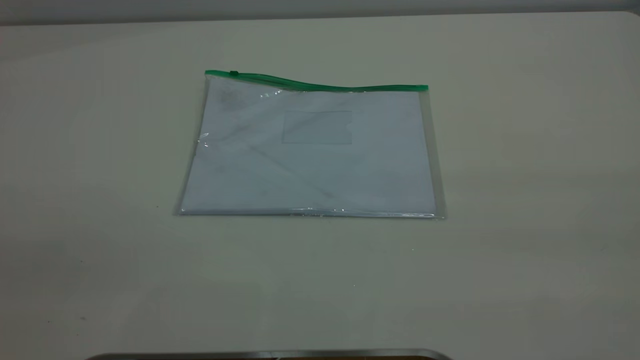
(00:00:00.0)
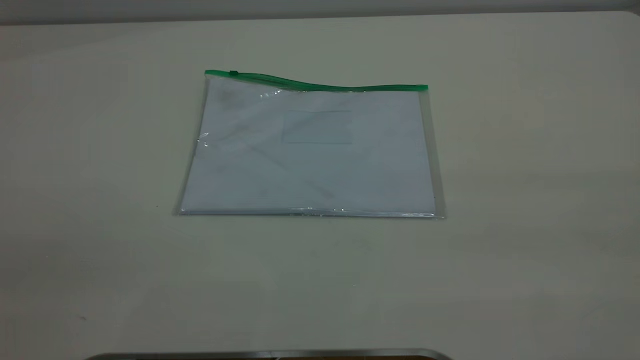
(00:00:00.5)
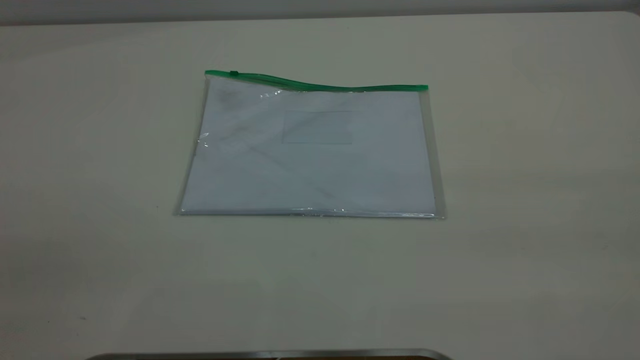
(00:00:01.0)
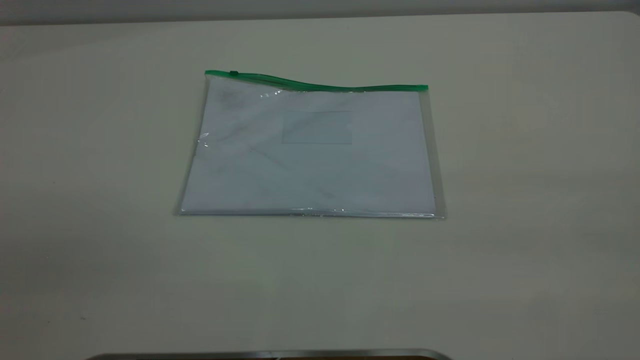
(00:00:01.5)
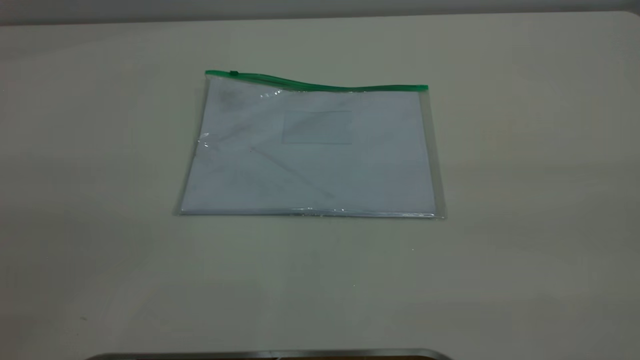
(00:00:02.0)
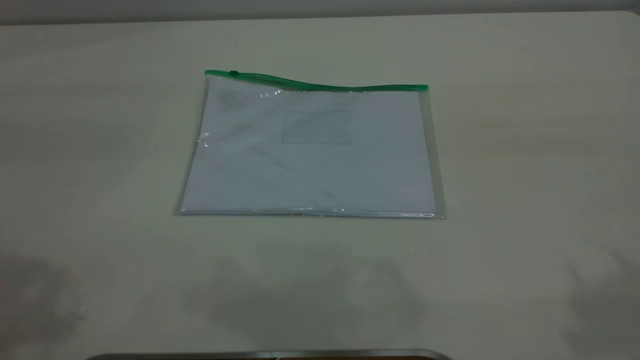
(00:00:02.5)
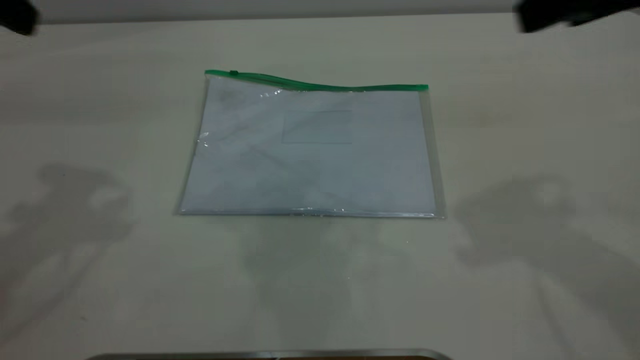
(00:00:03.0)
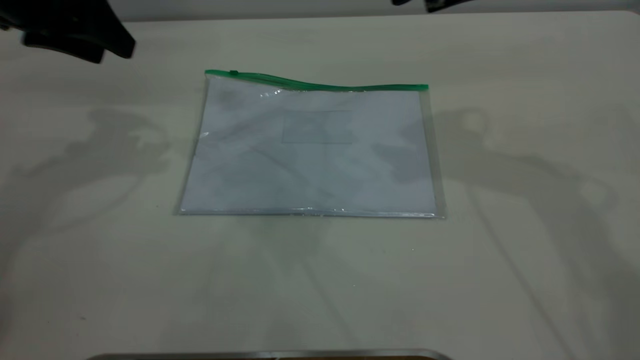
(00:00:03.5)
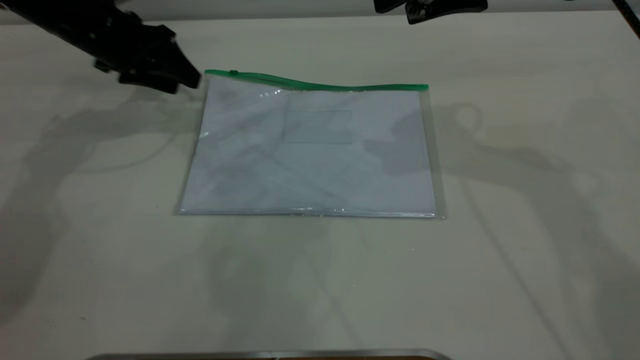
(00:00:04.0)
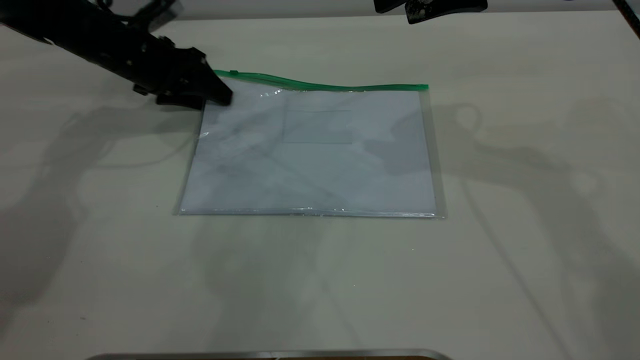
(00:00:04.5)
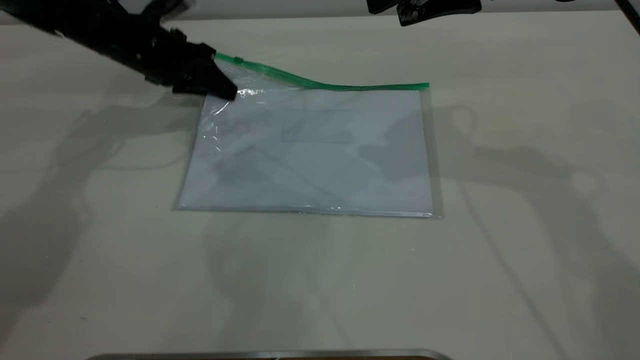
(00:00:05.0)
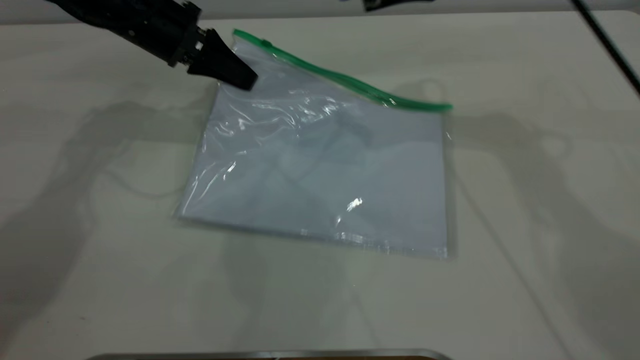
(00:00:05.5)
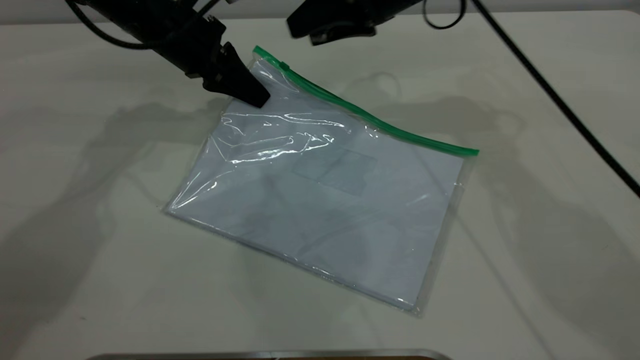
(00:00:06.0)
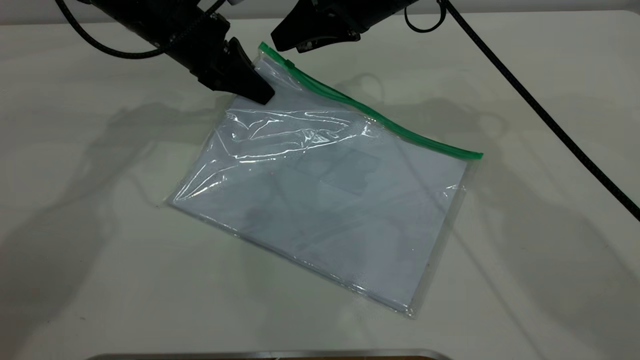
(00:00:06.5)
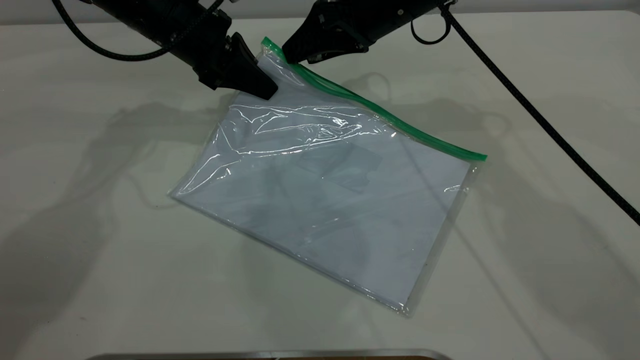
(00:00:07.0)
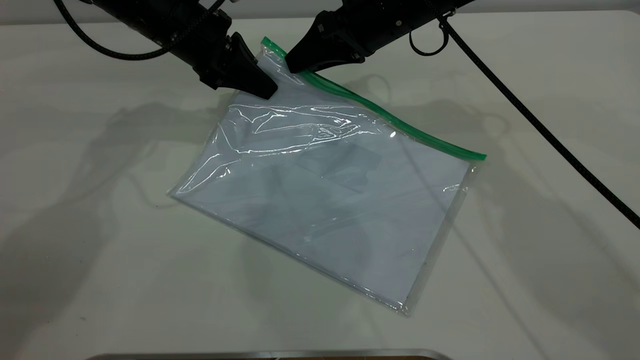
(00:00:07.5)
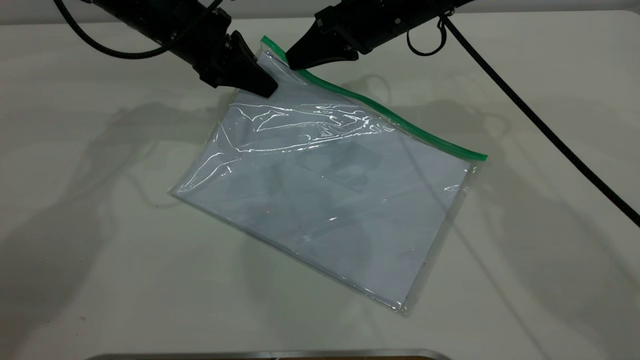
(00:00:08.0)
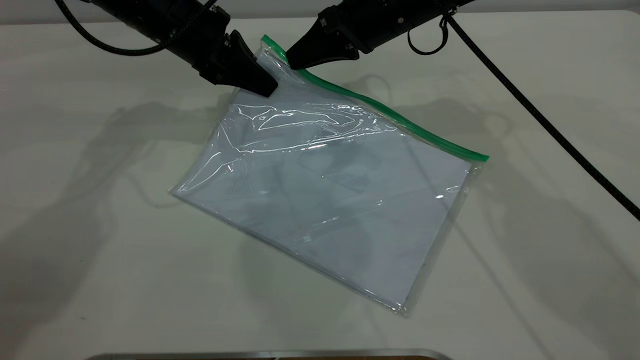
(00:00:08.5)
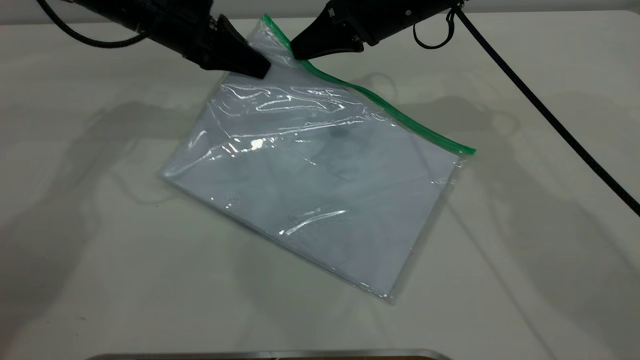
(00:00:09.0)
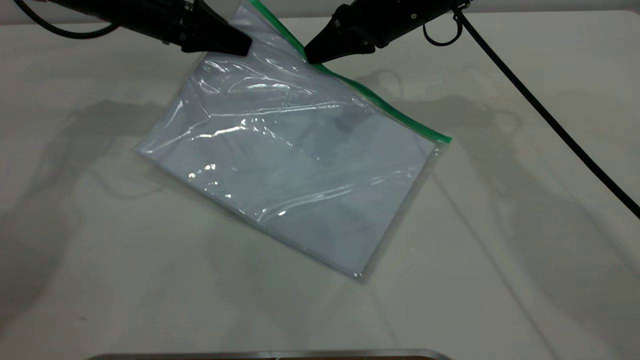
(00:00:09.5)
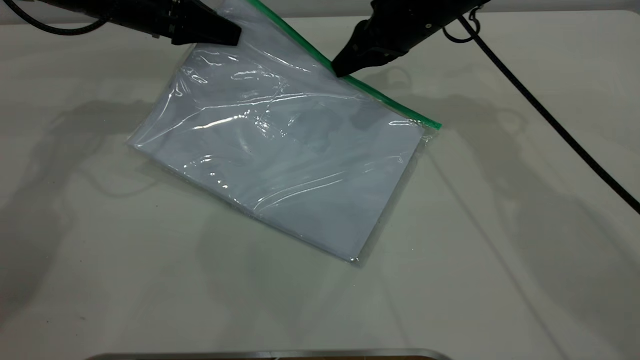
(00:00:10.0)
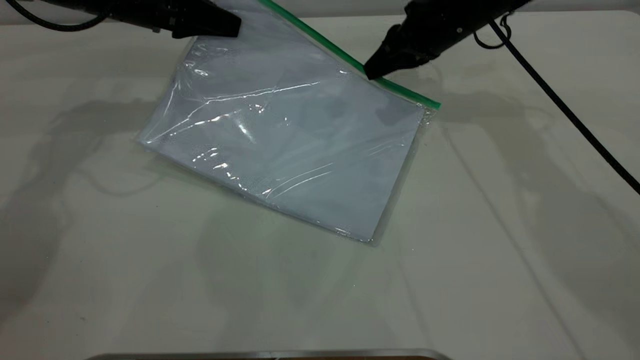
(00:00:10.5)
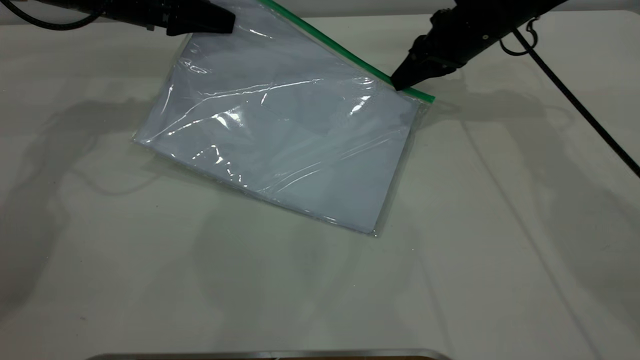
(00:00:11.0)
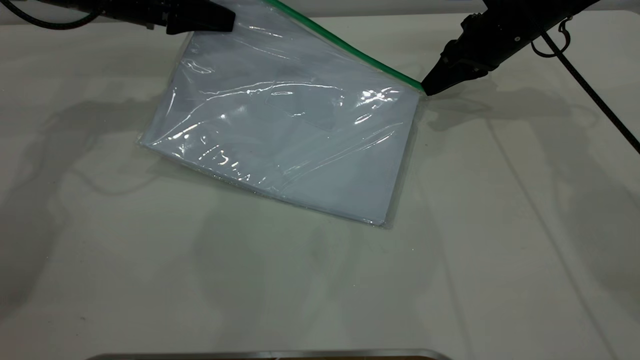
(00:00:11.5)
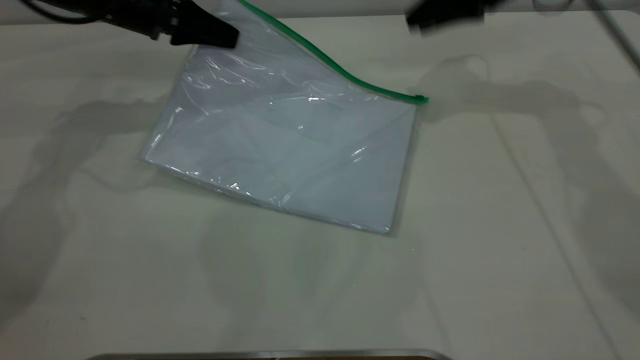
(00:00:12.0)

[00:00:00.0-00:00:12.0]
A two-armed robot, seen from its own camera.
Step, 00:00:00.0 to 00:00:05.0: Pick up the transparent plastic bag with the left gripper.
Step, 00:00:05.5 to 00:00:11.5: Pulling up the zipper on the transparent plastic bag with the right gripper to close it.
00:00:02.0 to 00:00:04.0: The left gripper heads forward and downward, covering roughly 50 cm, while the right gripper heads forward, covering some 40 cm.
00:00:04.0 to 00:00:06.0: The right gripper is displaced forward, to the left and downward by approximately 15 cm, while the left gripper is displaced to the right by some 10 cm, and closes up.
00:00:06.0 to 00:00:08.0: The right gripper closes.
00:00:08.0 to 00:00:10.0: The left gripper travels to the left by some 5 cm.
00:00:10.0 to 00:00:12.0: The right gripper travels to the right and upward by approximately 10 cm, and opens up.

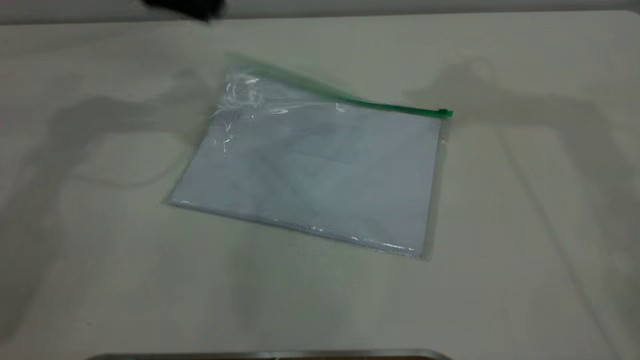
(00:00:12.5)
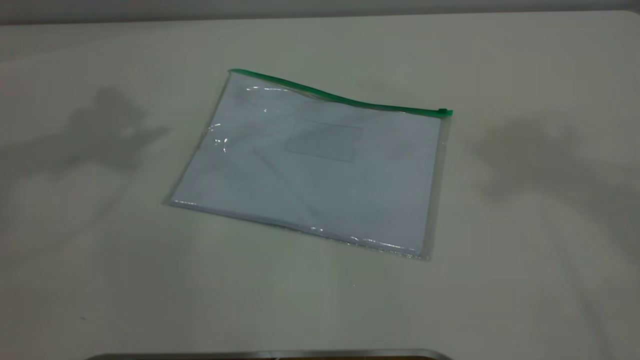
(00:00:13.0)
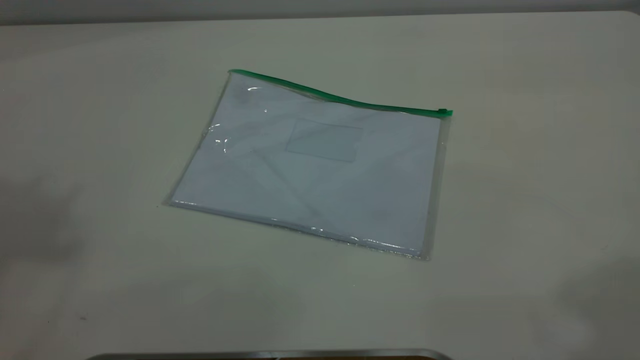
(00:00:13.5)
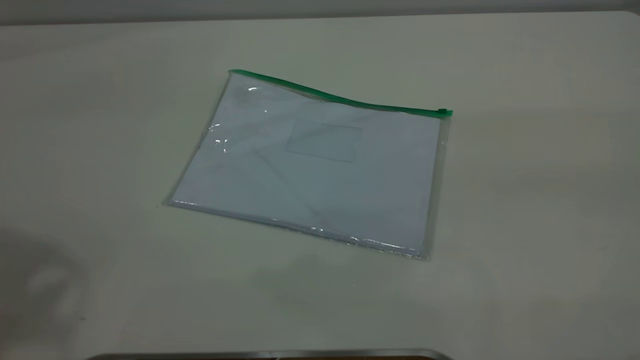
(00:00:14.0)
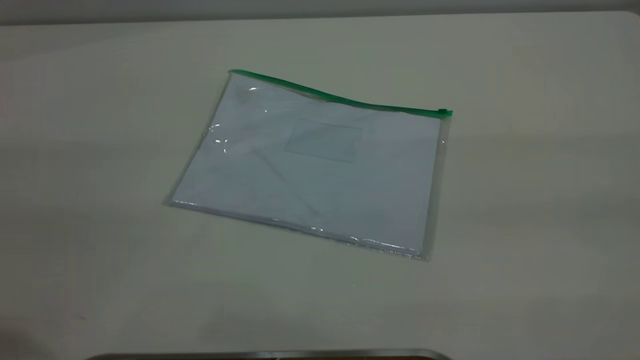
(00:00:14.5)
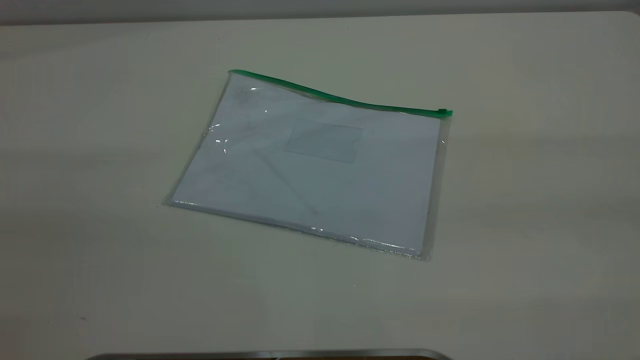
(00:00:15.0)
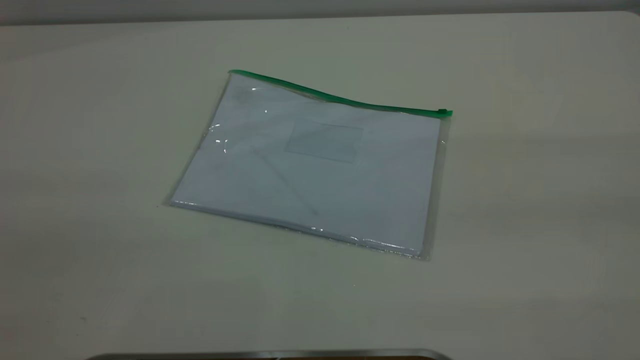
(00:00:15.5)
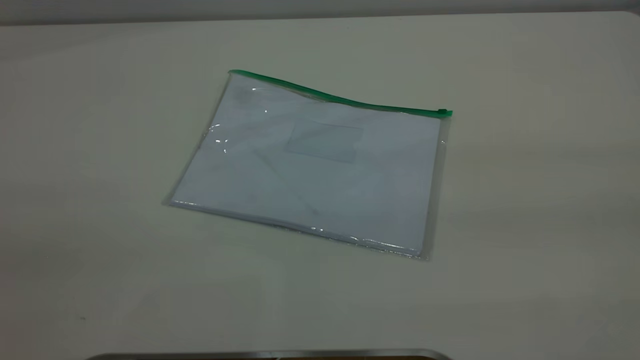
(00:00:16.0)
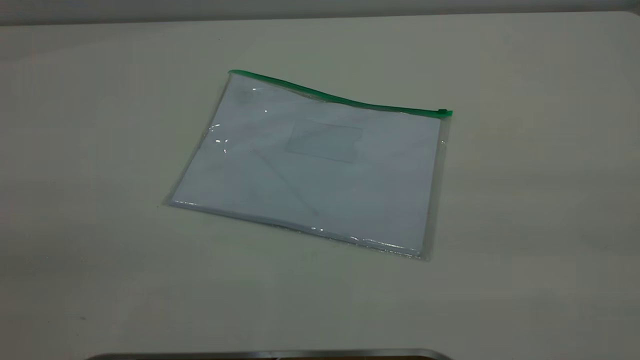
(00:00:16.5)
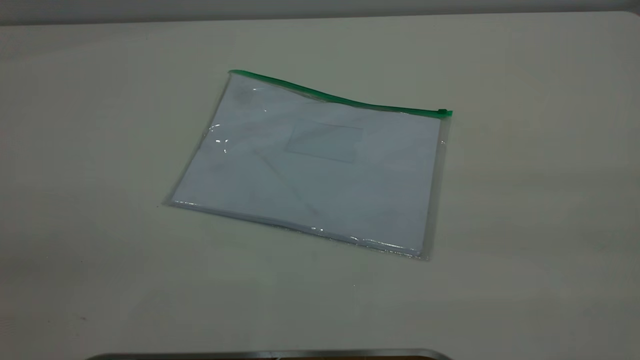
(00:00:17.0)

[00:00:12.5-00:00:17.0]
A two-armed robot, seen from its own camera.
00:00:12.5 to 00:00:14.5: Both grippers travel together backward, about 35 cm.
